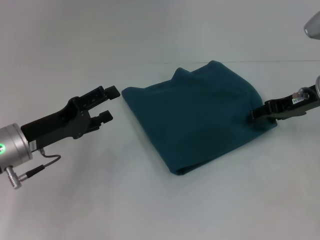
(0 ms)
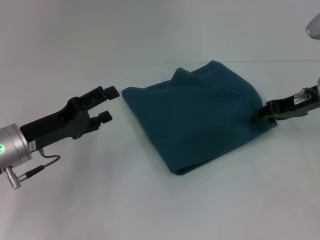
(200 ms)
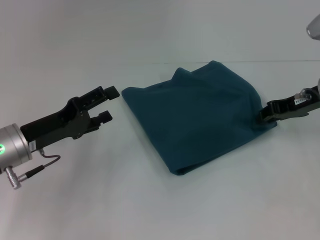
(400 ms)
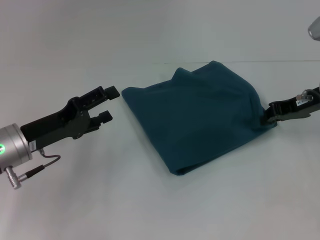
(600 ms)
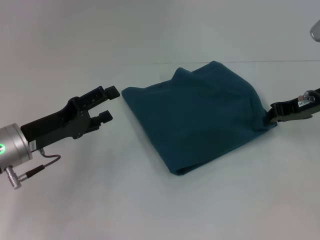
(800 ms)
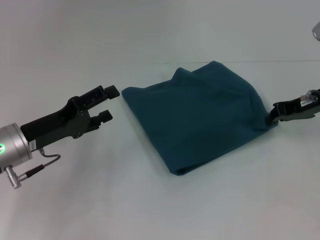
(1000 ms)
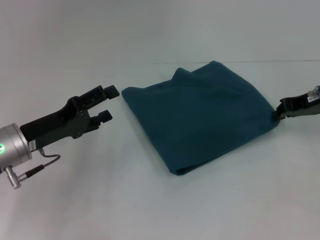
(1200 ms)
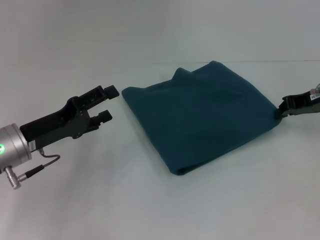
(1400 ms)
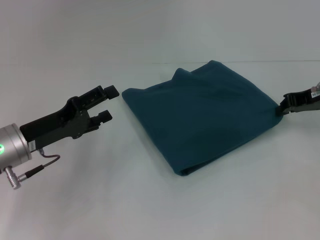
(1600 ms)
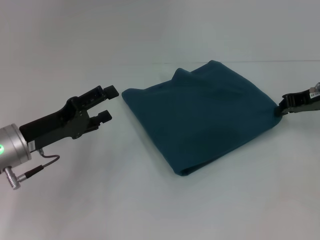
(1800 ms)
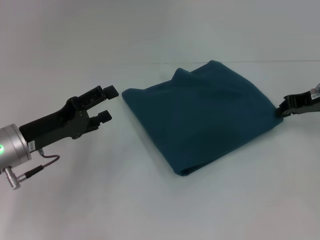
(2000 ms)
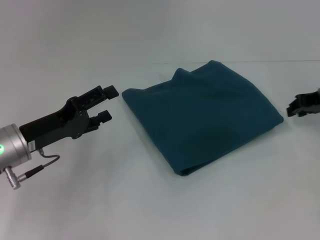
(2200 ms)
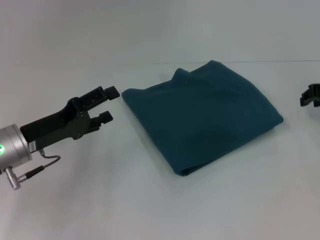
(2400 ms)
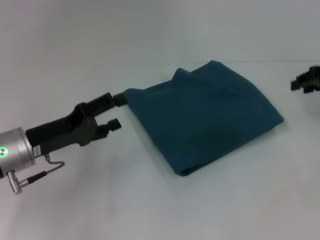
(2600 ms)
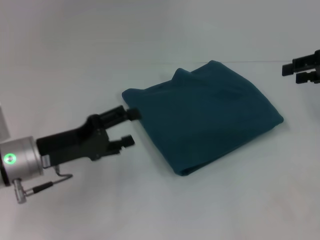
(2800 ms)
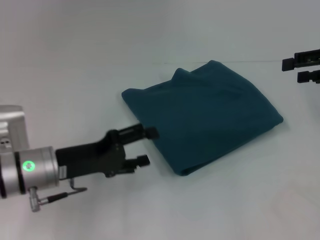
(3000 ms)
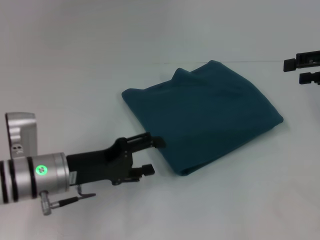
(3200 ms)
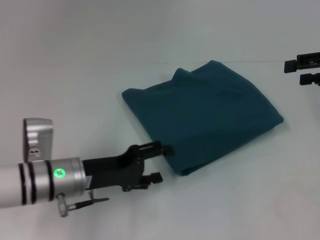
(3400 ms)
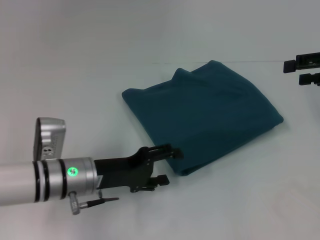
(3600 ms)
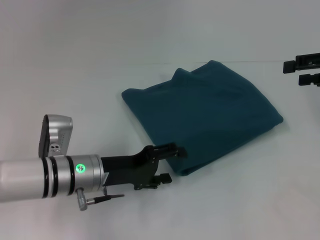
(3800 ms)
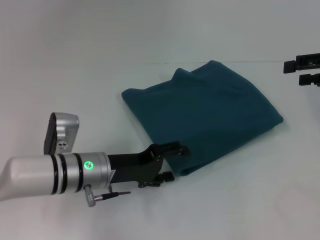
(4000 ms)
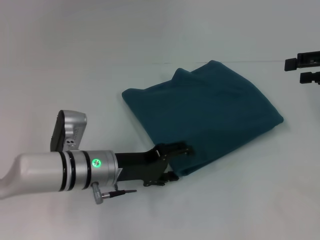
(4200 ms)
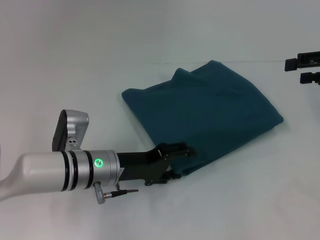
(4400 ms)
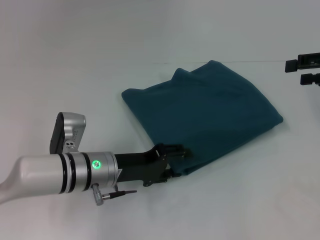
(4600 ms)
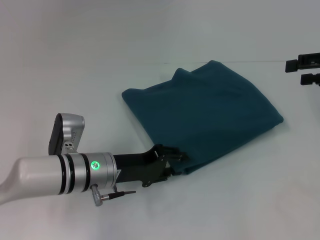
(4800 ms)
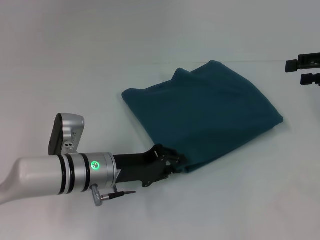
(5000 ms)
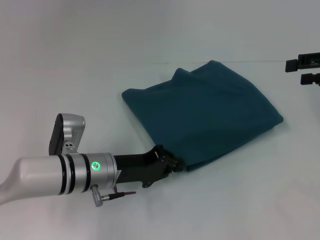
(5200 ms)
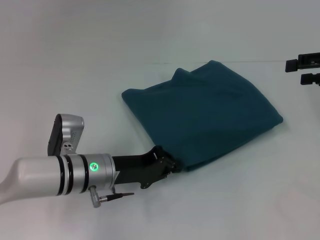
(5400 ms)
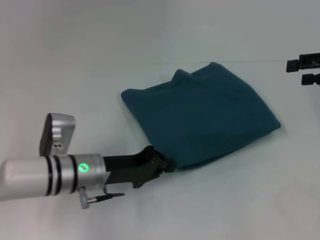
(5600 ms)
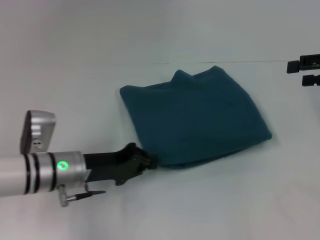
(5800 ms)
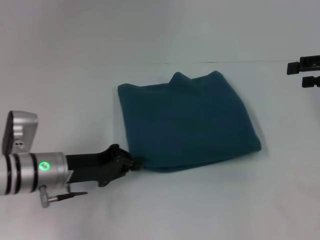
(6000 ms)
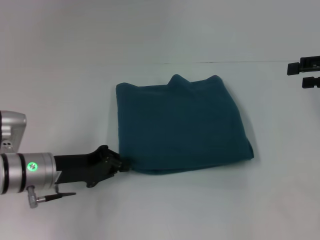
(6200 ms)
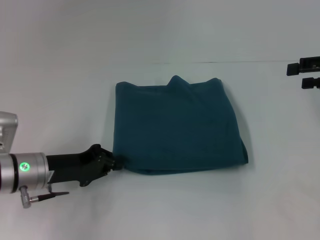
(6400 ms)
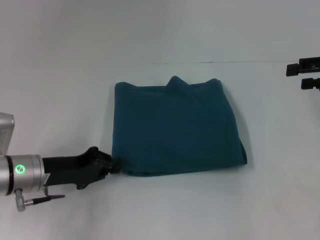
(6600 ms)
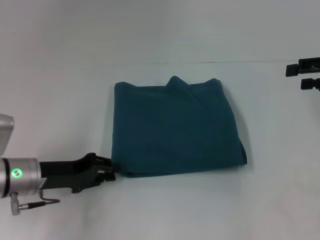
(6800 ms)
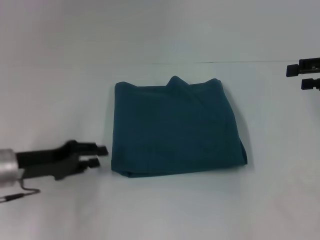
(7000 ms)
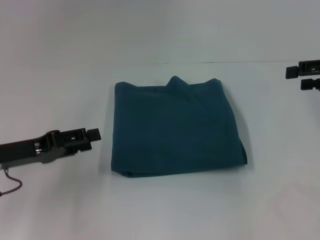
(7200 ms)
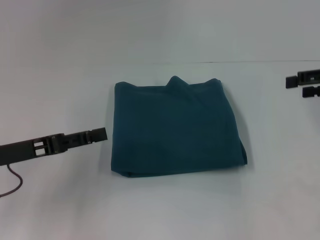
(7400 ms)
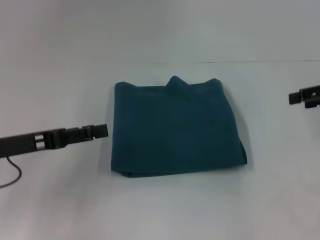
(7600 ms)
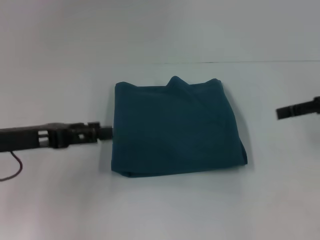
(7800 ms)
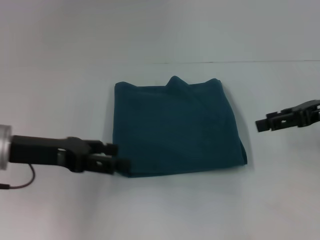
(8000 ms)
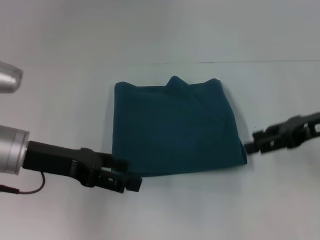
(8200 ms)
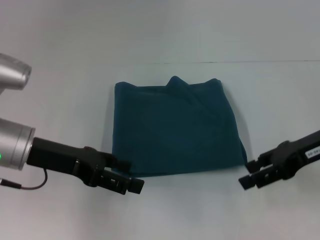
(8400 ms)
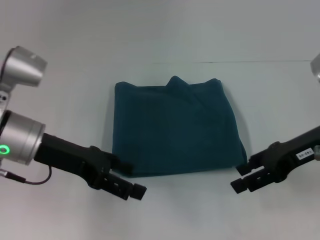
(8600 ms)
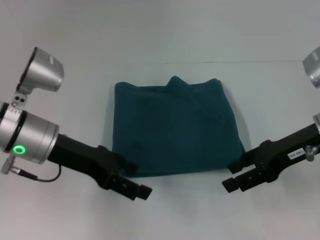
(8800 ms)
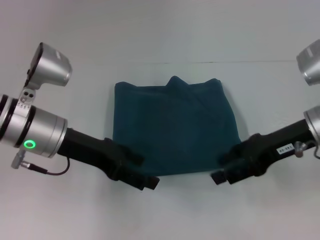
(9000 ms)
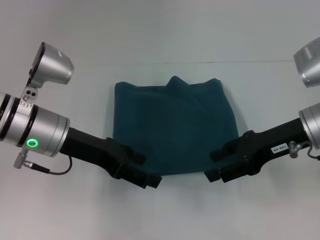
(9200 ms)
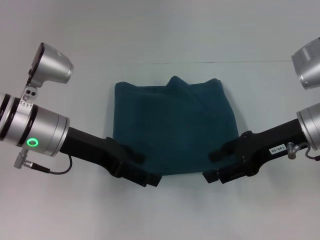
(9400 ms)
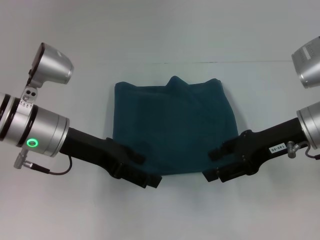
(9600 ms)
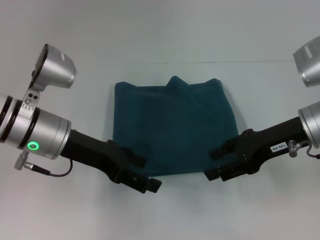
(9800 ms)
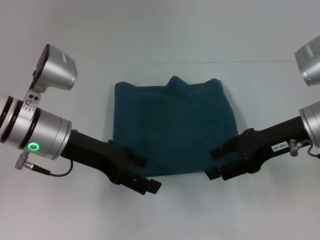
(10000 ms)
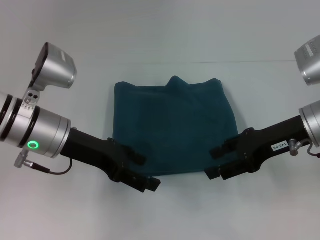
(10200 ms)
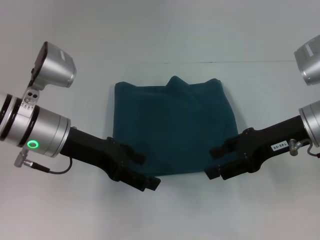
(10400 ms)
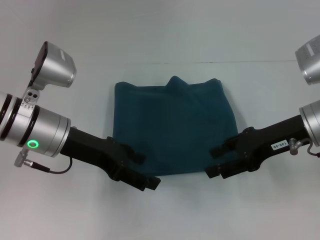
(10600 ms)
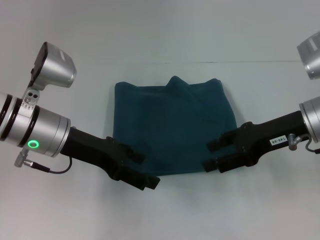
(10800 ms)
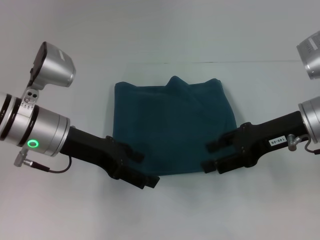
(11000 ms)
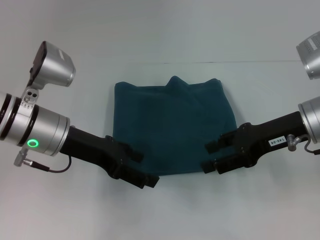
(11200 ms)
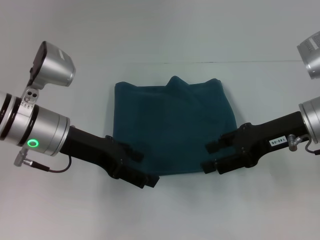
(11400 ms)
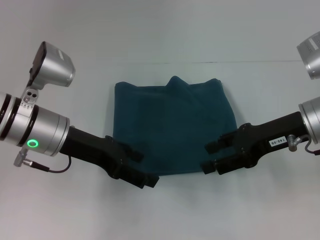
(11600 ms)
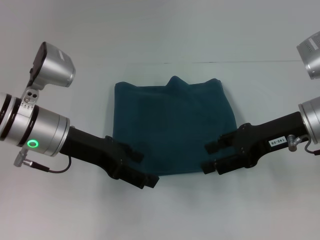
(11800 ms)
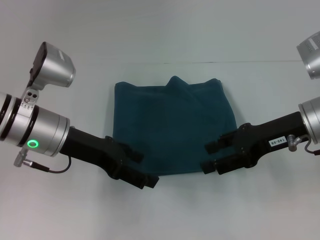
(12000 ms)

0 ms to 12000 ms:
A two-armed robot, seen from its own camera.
0 ms to 1600 ms: The right gripper closes.
1600 ms to 3000 ms: The right gripper moves upward and to the right, roughly 10 cm, and opens.
3000 ms to 4400 ms: The left gripper goes about 10 cm to the right.
4400 ms to 6000 ms: The left gripper is displaced to the left by roughly 5 cm, and closes.
6000 ms to 7600 ms: The left gripper shifts roughly 10 cm to the left and upward, and opens up.
7600 ms to 9000 ms: The left gripper is displaced to the right and forward by approximately 10 cm; the right gripper shifts some 10 cm to the left.
9000 ms to 10400 ms: The grippers stay close to where they were, moving slightly.
10400 ms to 12000 ms: Neither gripper changes place.

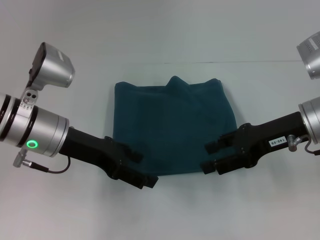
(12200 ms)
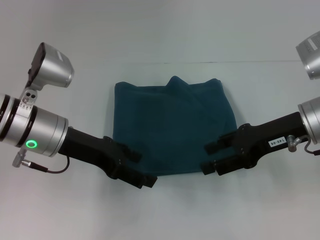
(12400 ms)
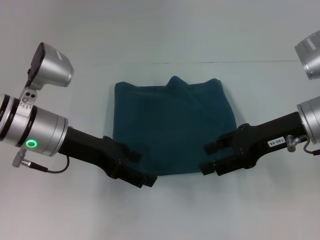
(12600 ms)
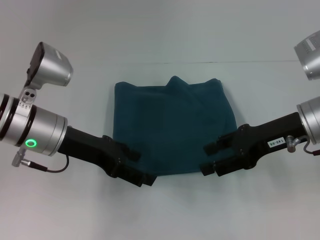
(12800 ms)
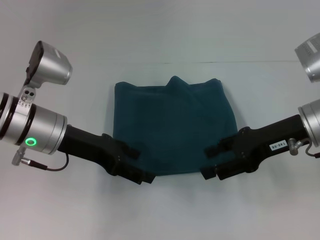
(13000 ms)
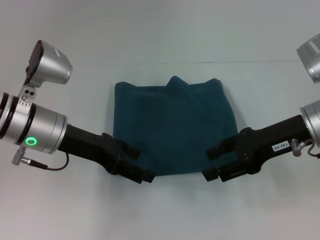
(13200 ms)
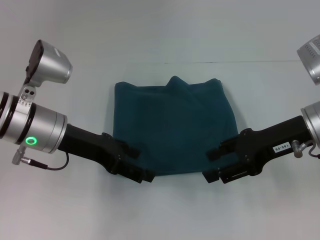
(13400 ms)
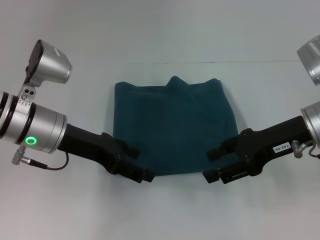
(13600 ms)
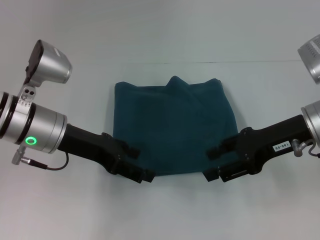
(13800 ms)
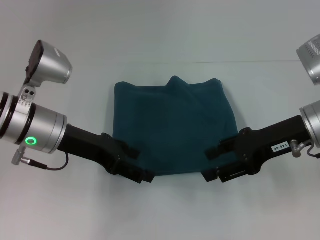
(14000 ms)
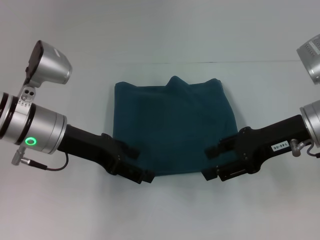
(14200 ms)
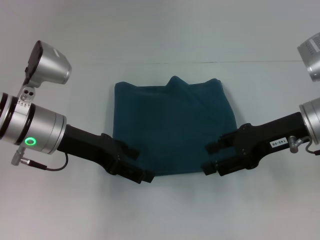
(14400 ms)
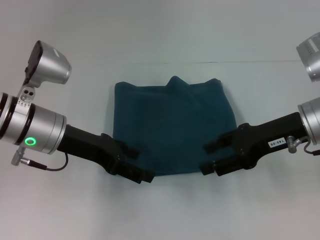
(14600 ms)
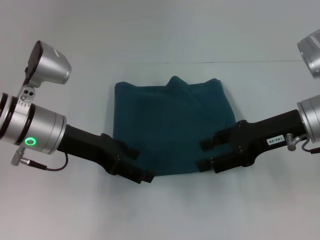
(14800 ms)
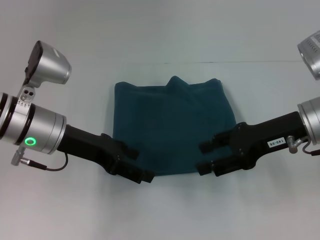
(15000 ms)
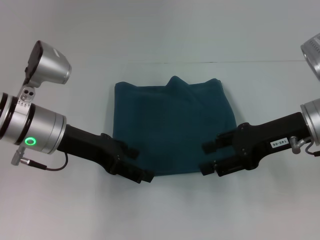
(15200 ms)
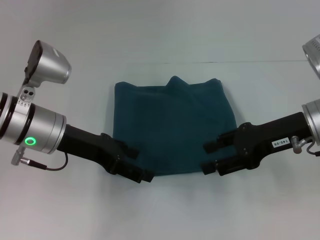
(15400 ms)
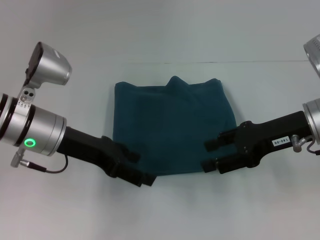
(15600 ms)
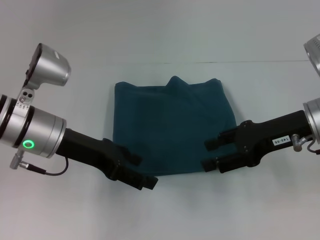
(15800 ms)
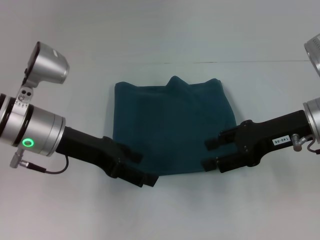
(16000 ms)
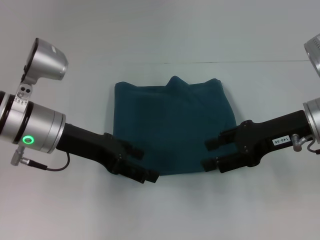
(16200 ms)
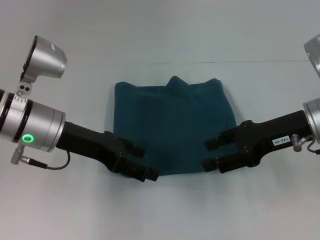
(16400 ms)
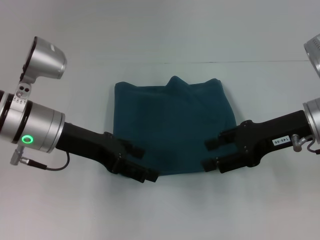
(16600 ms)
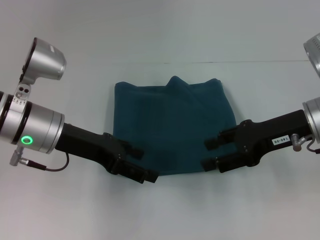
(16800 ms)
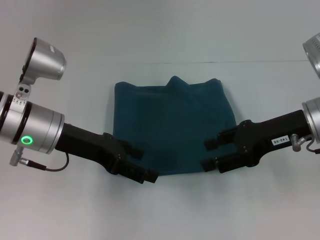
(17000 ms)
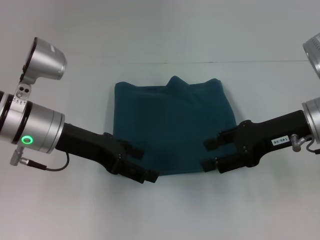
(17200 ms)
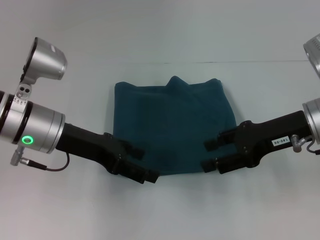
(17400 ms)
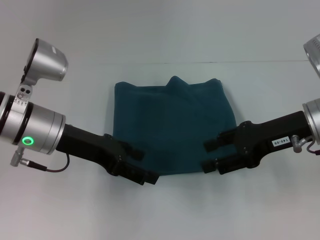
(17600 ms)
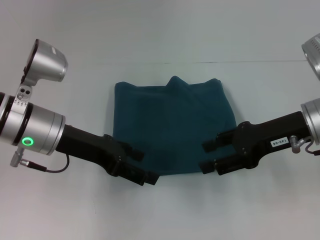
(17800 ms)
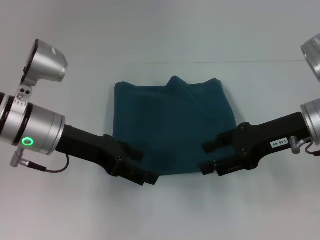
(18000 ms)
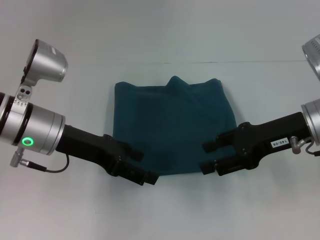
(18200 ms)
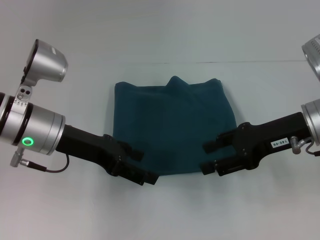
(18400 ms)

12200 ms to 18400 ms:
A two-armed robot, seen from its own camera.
12200 ms to 18400 ms: Neither gripper changes place.

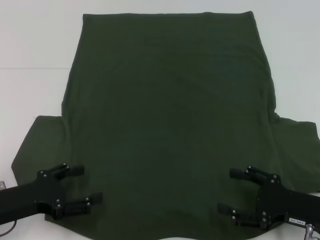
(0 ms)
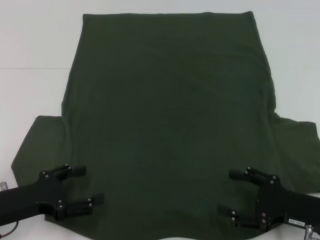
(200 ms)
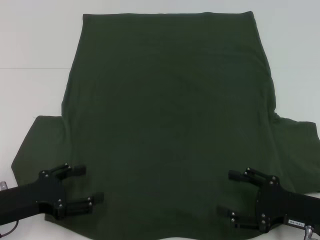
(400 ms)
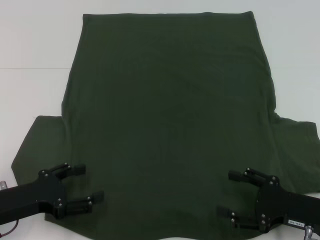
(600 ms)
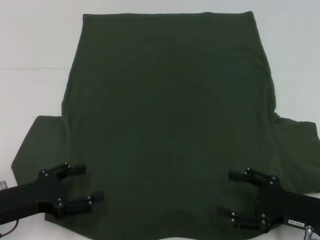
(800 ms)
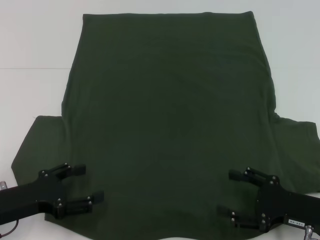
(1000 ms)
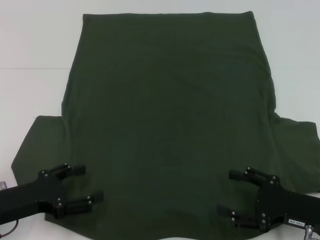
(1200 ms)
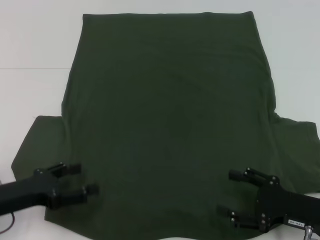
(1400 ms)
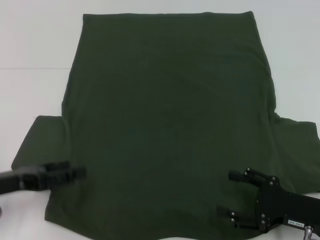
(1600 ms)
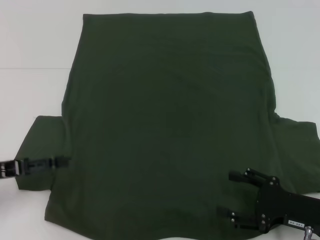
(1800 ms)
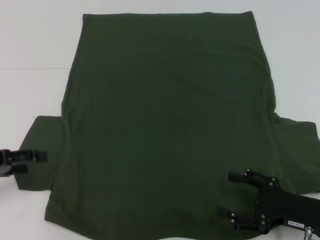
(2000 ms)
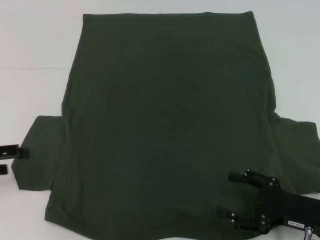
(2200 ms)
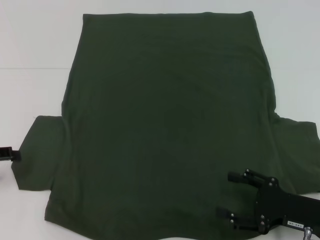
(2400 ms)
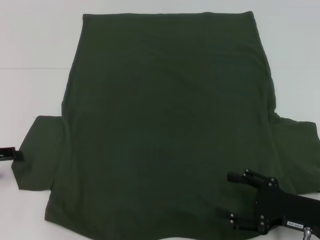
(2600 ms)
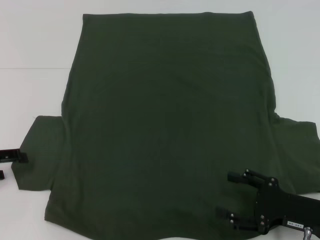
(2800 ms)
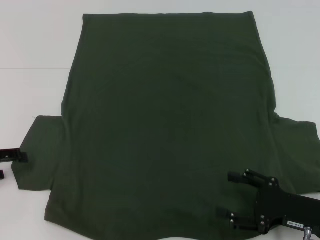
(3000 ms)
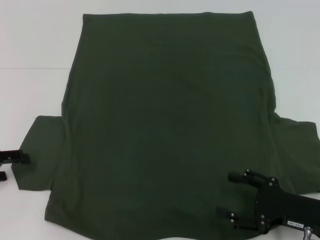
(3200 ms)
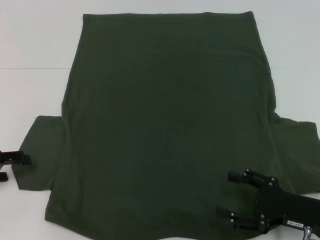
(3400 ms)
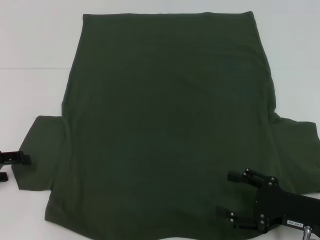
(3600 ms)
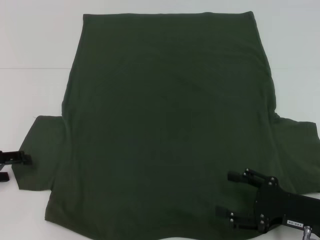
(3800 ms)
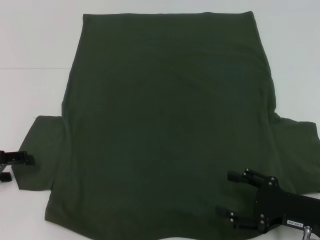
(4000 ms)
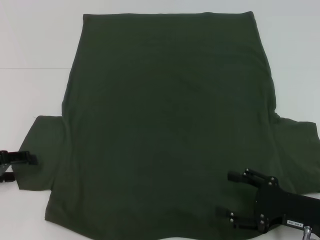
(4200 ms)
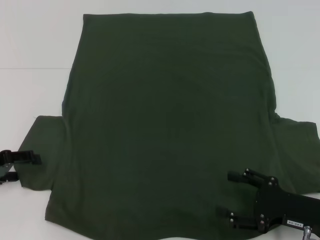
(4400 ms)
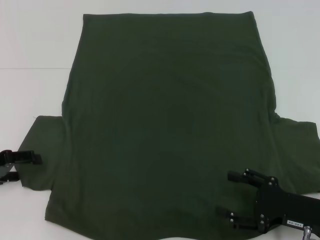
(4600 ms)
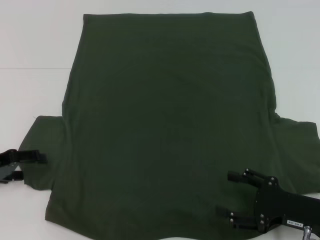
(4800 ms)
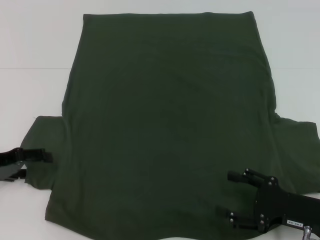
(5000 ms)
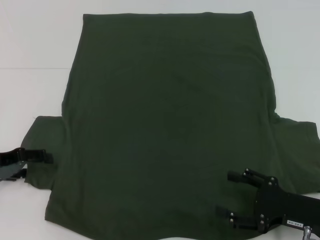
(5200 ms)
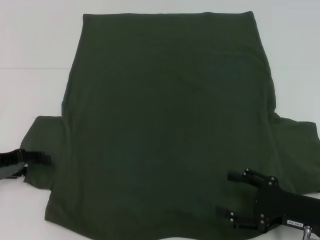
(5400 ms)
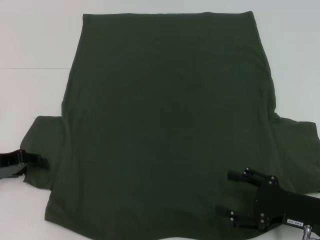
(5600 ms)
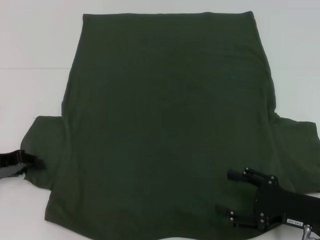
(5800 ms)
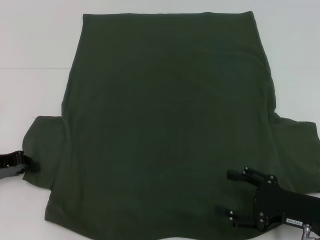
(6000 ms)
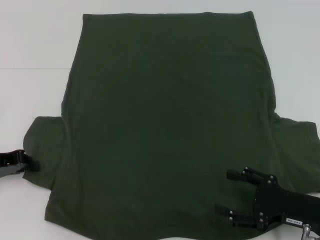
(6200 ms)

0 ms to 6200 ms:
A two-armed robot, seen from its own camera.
1600 ms to 3200 ms: The left gripper is displaced to the left by about 5 cm.
3200 ms to 4600 ms: The grippers move only a little.
4600 ms to 6200 ms: The left gripper closes its fingers.
